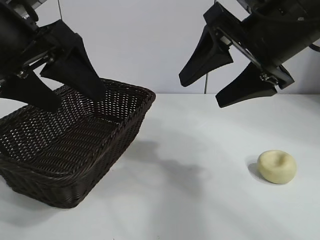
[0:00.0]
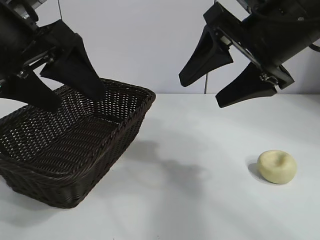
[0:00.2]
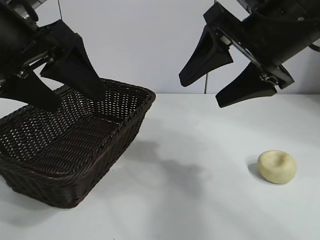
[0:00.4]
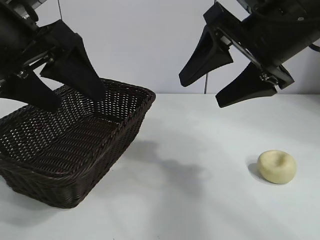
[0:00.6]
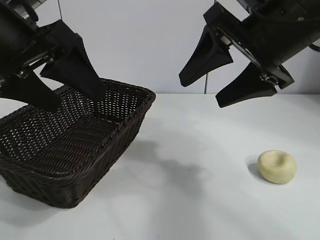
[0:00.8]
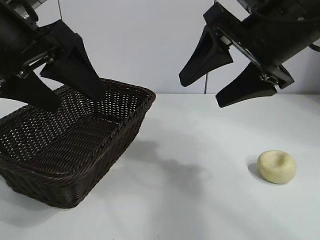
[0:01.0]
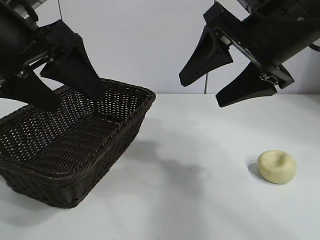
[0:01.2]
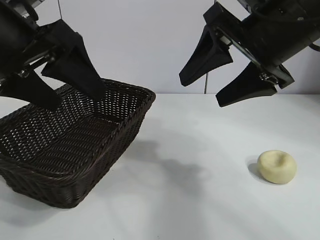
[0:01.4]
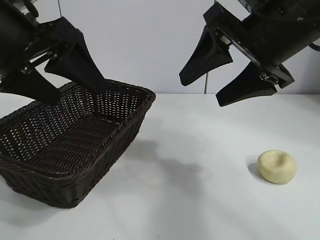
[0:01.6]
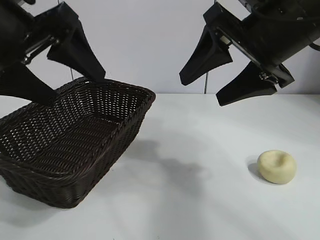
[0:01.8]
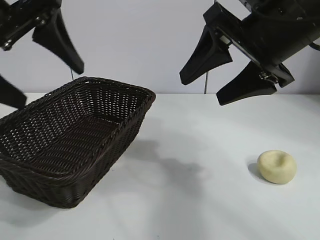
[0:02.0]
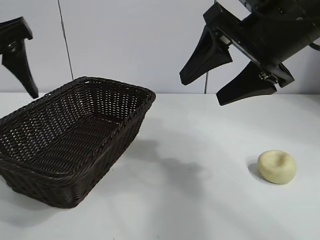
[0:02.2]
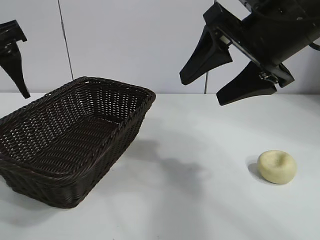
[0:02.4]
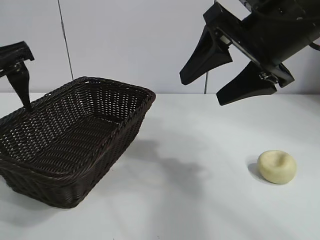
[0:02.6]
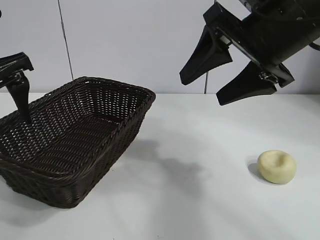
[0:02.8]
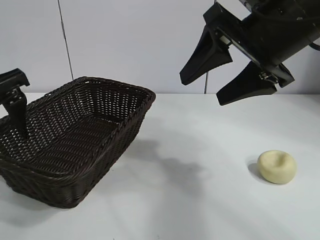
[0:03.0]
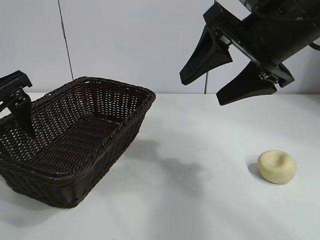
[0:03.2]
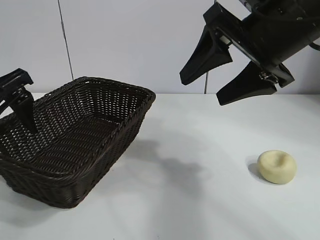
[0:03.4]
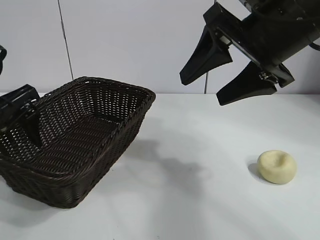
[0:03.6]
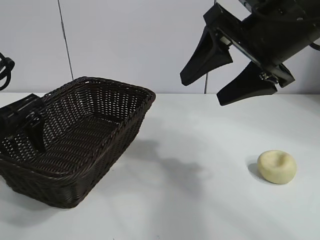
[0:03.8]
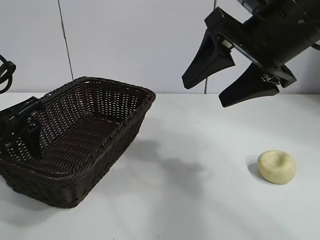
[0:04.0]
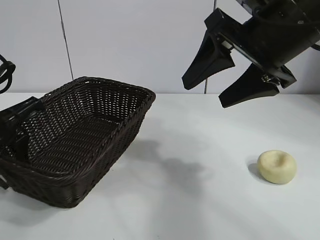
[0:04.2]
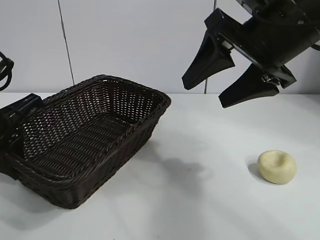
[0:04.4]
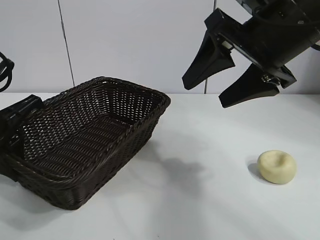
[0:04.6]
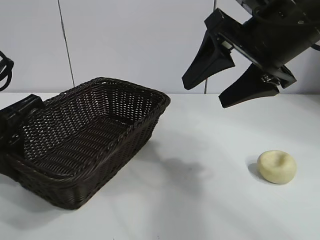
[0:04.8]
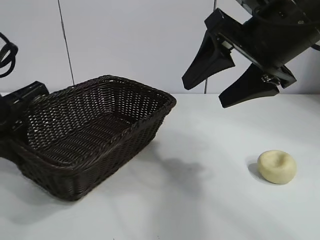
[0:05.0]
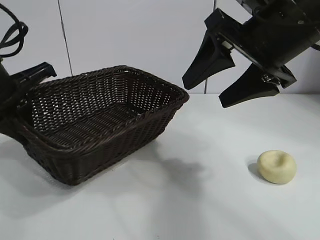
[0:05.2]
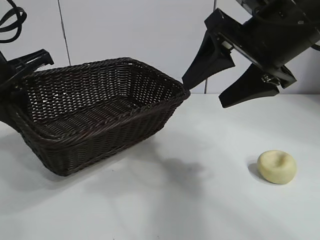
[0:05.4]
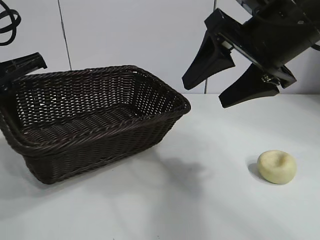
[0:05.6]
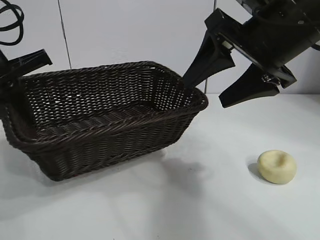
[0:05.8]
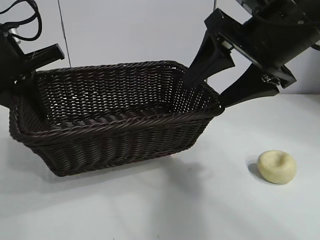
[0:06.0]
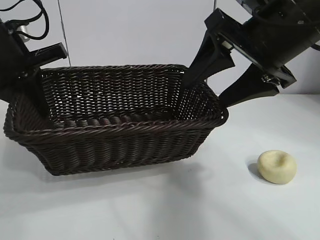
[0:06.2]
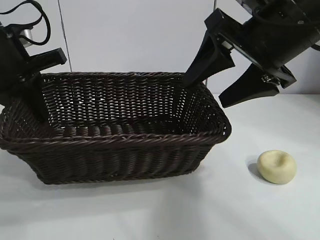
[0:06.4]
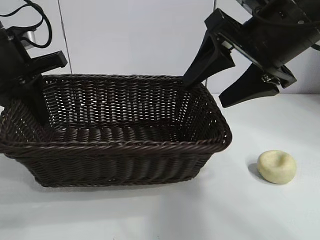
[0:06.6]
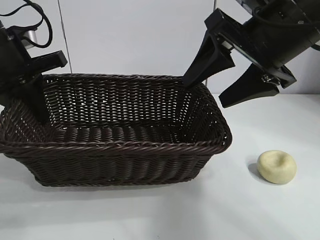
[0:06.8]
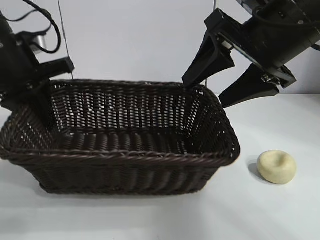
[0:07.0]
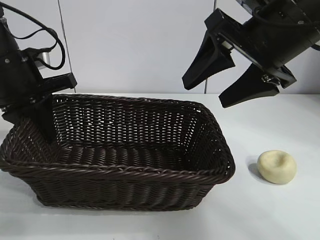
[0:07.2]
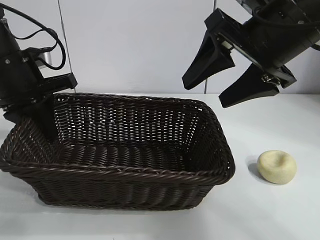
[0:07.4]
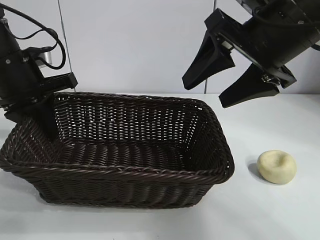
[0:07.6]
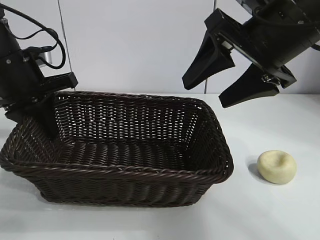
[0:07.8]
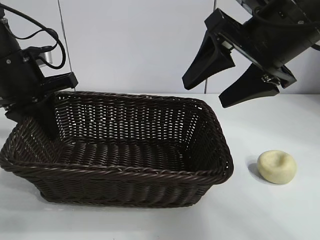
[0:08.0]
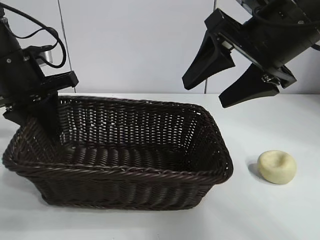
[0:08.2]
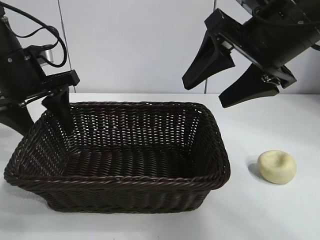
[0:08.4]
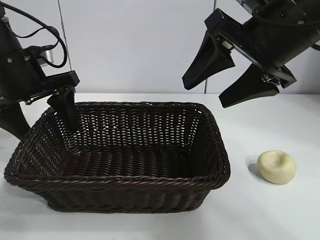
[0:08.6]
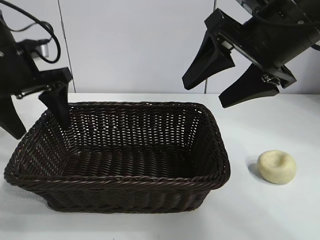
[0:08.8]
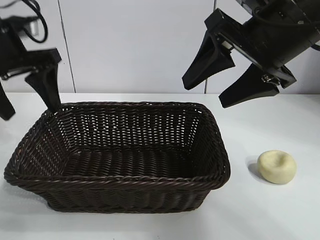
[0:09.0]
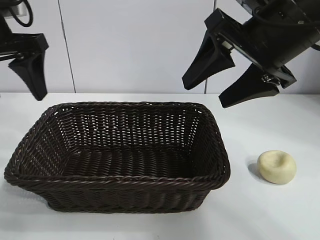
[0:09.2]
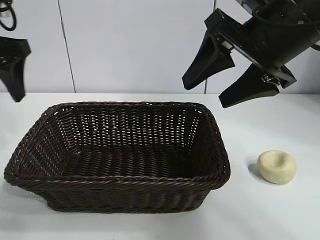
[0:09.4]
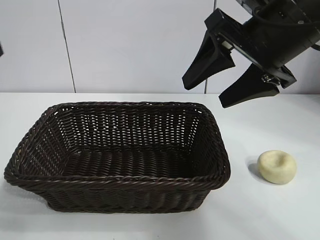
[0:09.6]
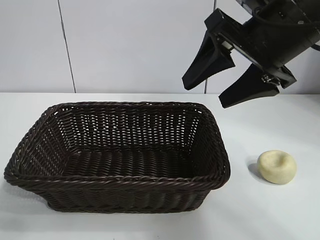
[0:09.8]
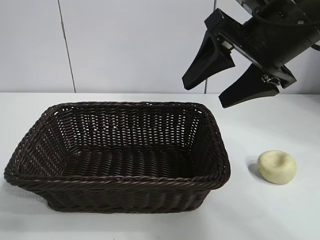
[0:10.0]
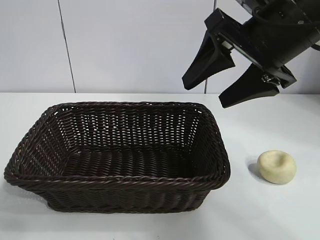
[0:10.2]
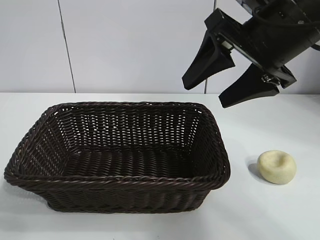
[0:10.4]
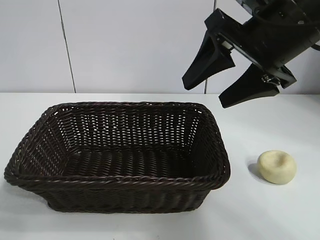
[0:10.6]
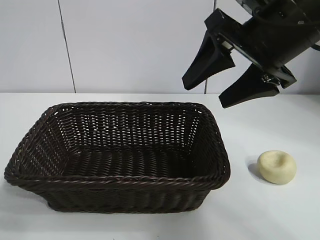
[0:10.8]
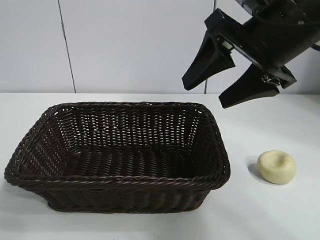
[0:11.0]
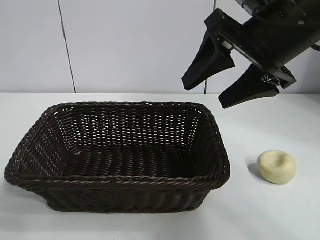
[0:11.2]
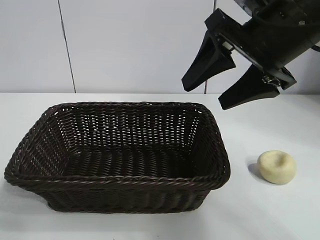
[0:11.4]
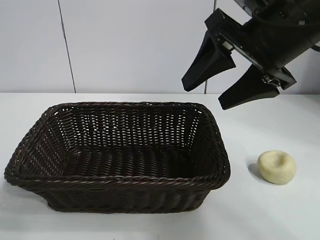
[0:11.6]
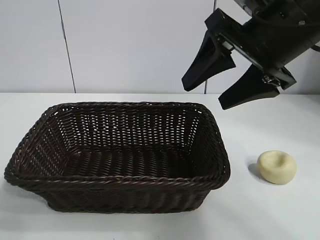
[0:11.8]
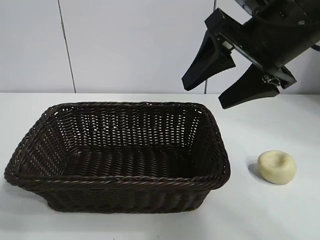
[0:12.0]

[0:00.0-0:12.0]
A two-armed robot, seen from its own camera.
Task of the whole recording: pick up the egg yolk pastry and put it into the basket.
Step, 0:01.4 to 0:04.4: Grasp the basket with left gripper.
Step, 0:04.6 to 0:08.6: Place the basket in the center of view with left gripper.

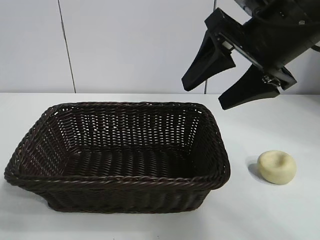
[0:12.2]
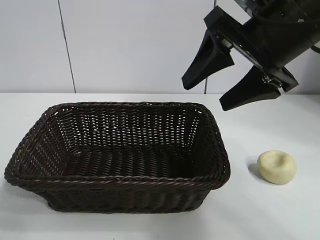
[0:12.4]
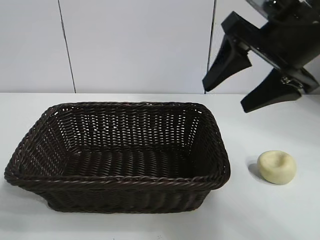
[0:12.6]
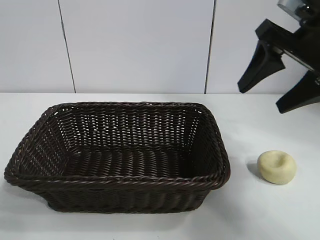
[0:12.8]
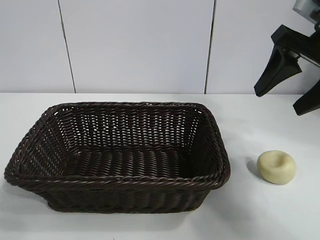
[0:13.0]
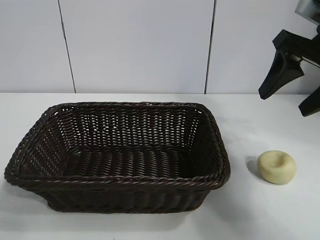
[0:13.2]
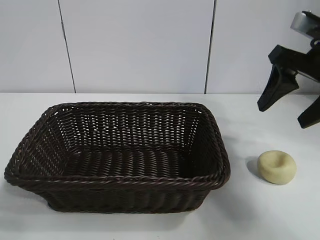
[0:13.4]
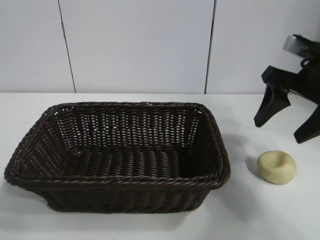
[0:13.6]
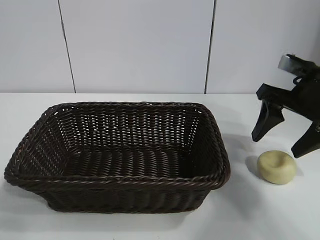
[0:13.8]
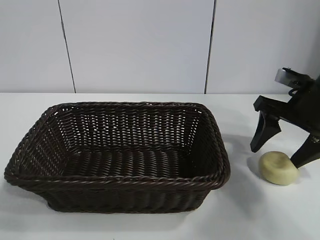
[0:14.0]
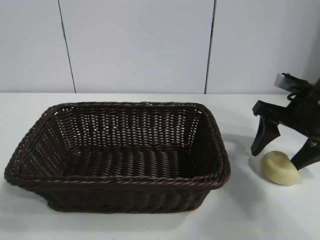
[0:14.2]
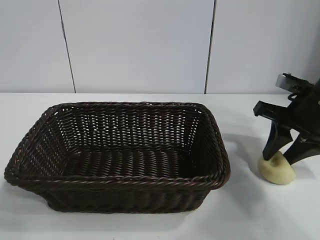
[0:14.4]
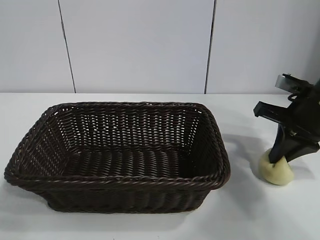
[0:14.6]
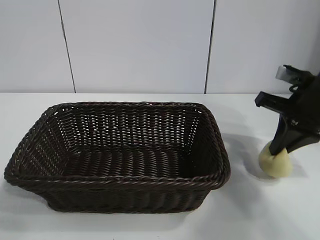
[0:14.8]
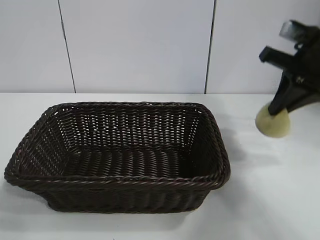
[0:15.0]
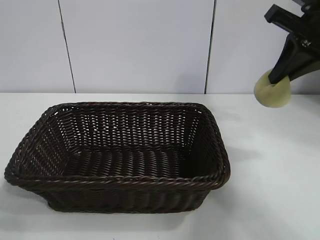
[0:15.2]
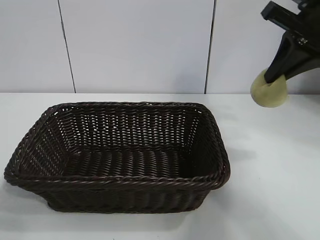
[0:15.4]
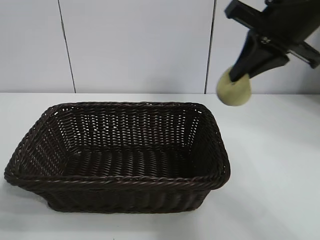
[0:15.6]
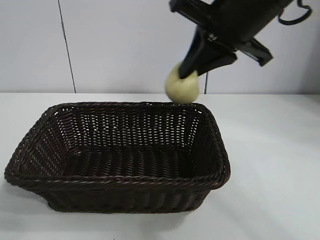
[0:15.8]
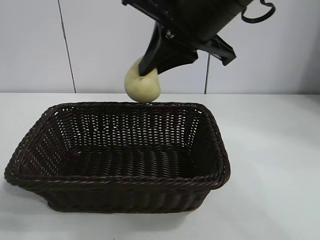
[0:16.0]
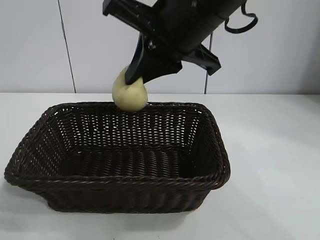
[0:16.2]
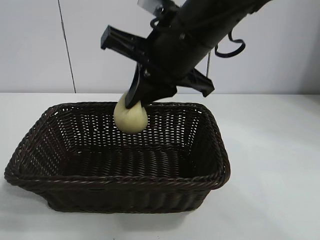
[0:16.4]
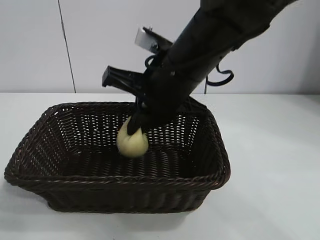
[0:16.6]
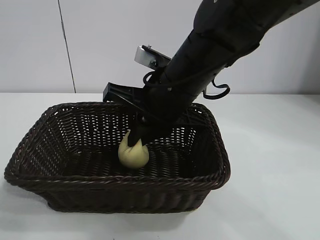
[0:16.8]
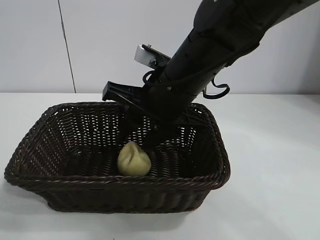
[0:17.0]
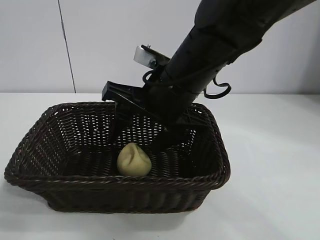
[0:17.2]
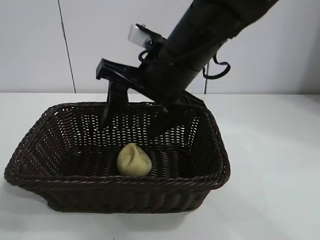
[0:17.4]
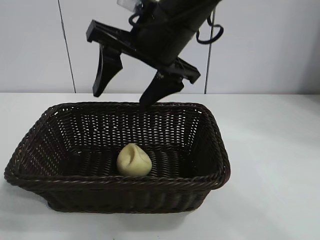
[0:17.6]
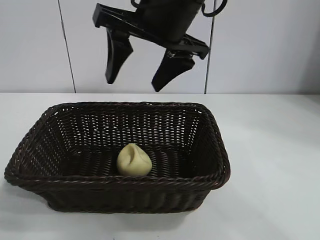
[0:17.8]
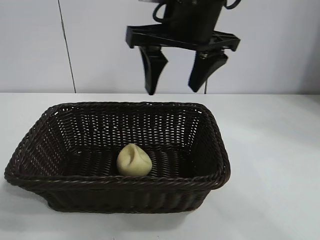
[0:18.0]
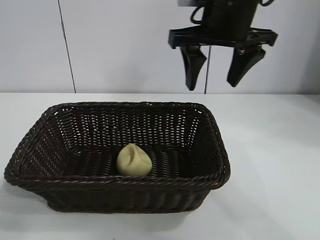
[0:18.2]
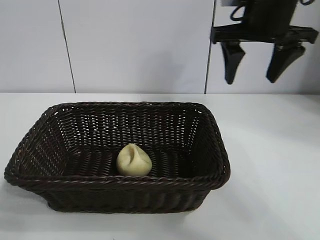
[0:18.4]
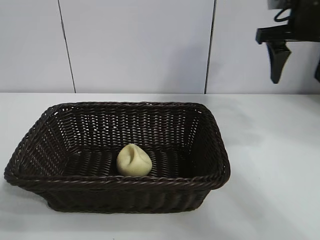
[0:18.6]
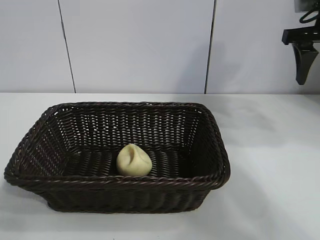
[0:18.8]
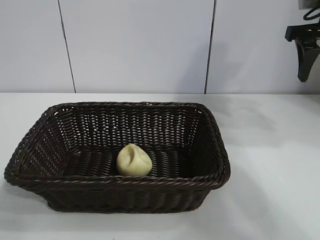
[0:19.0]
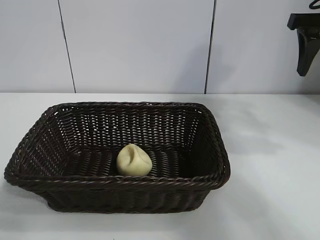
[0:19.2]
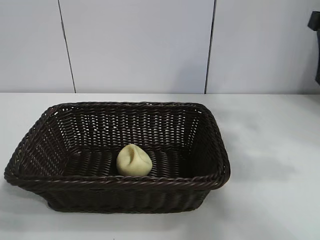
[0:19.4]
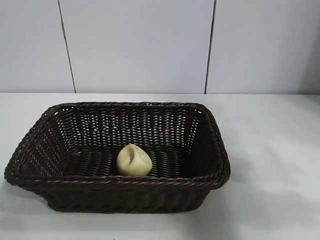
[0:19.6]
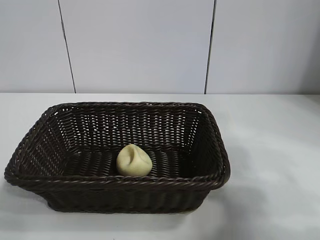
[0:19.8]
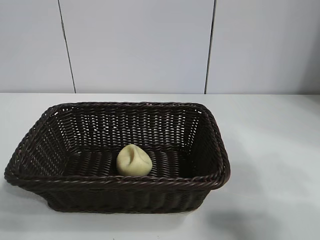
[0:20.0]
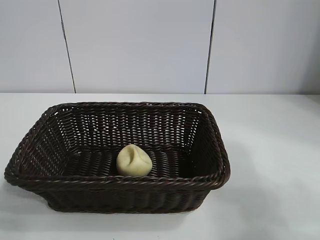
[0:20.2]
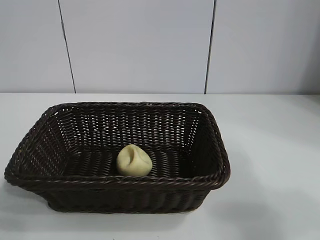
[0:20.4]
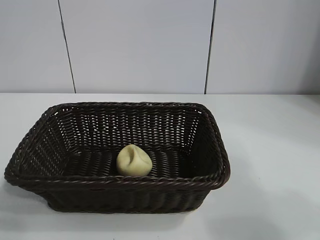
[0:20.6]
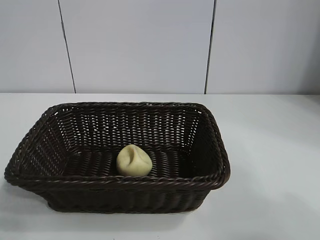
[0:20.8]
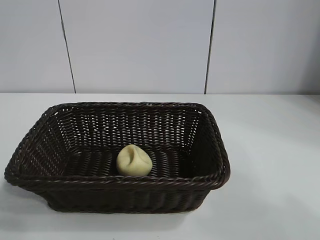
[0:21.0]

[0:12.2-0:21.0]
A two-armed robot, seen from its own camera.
Task of the whole recording: pick up the egg yolk pastry and put it into the basket.
Step, 0:12.2 to 0:14.6: Grasp egg yolk pastry with right gripper.
Step, 0:14.8 to 0:17.2: Place the egg yolk pastry in the basket with right gripper.
